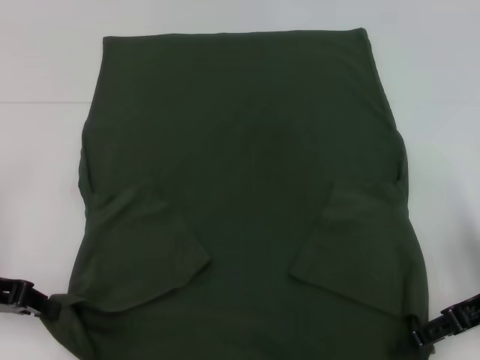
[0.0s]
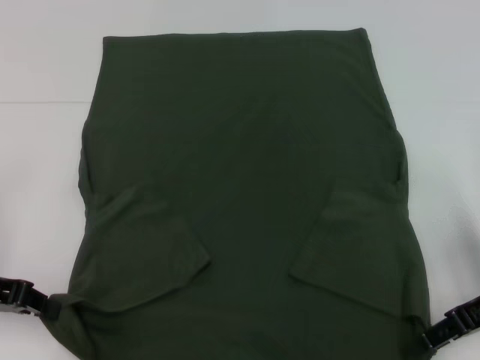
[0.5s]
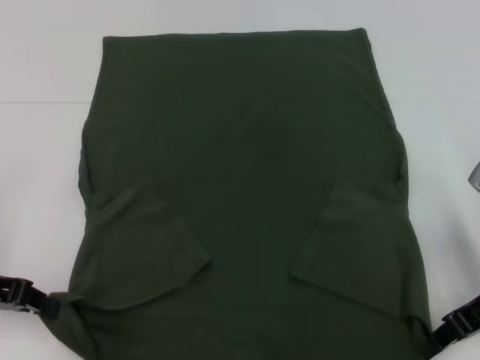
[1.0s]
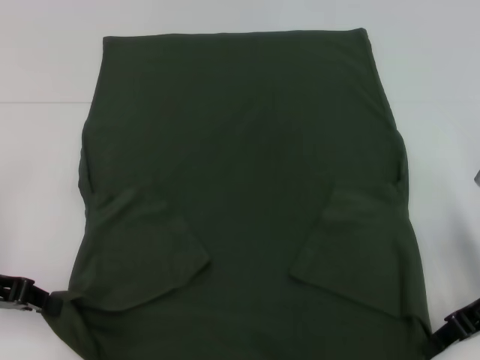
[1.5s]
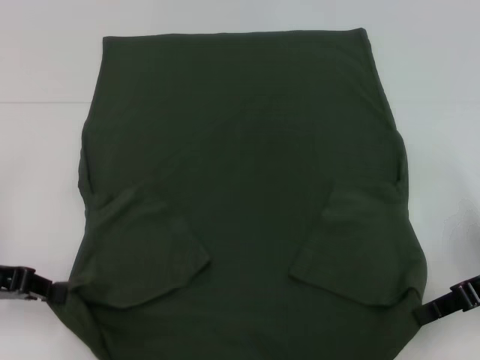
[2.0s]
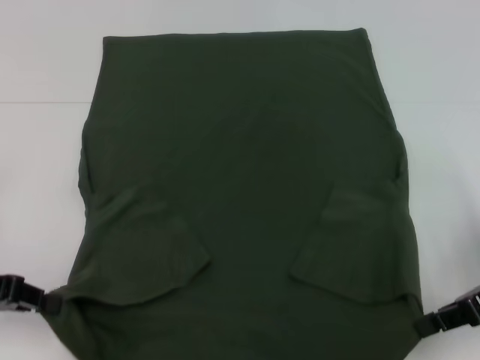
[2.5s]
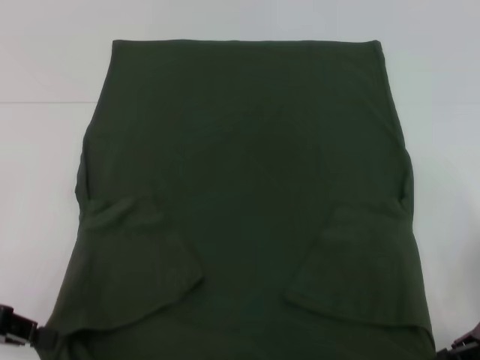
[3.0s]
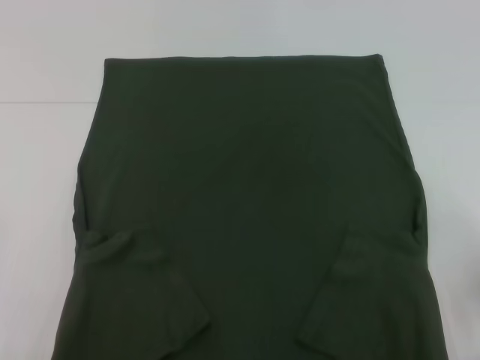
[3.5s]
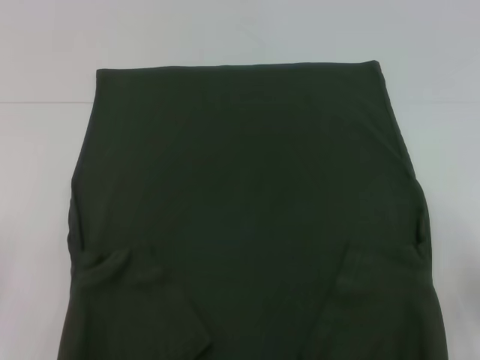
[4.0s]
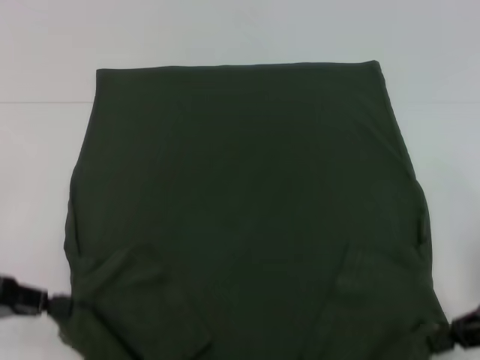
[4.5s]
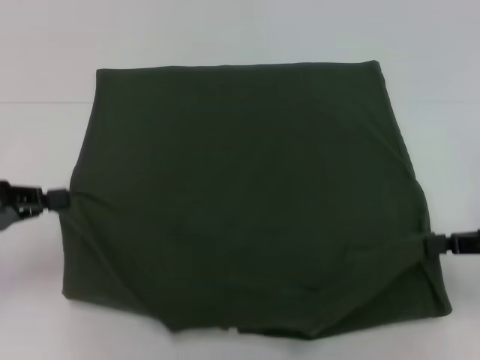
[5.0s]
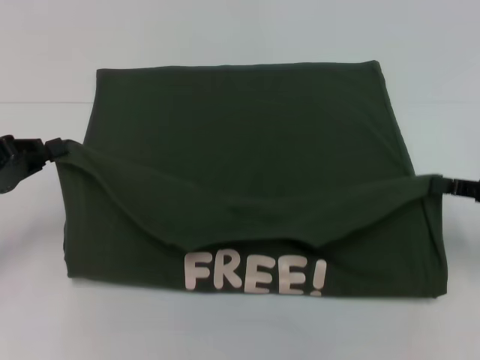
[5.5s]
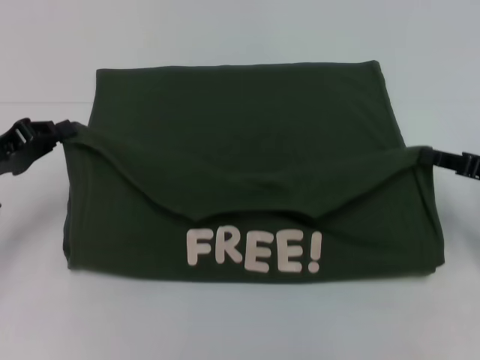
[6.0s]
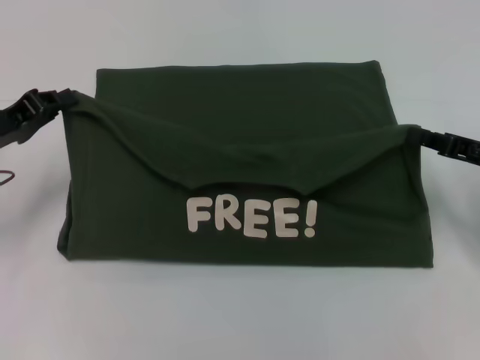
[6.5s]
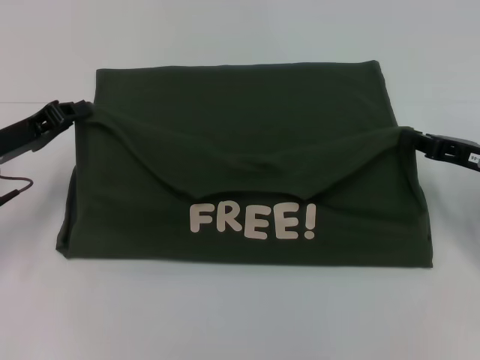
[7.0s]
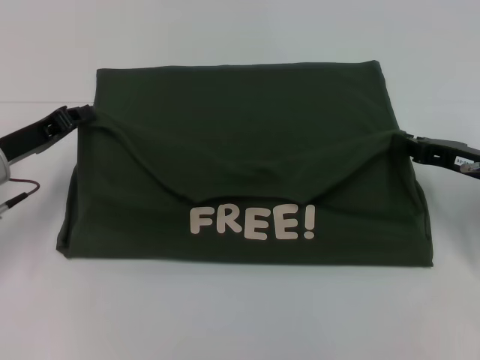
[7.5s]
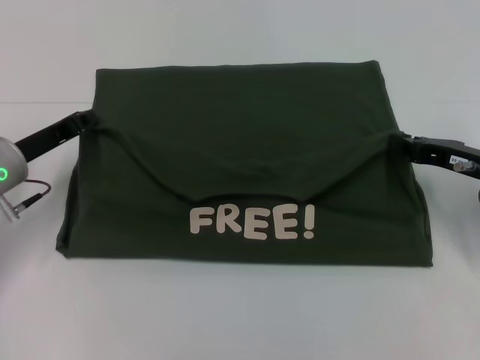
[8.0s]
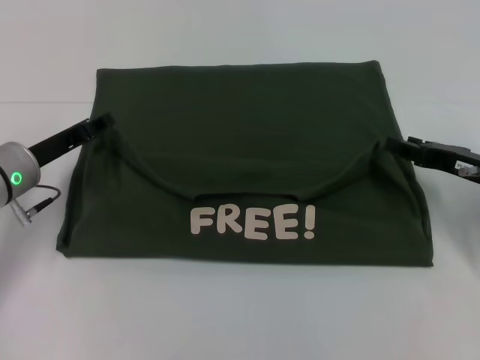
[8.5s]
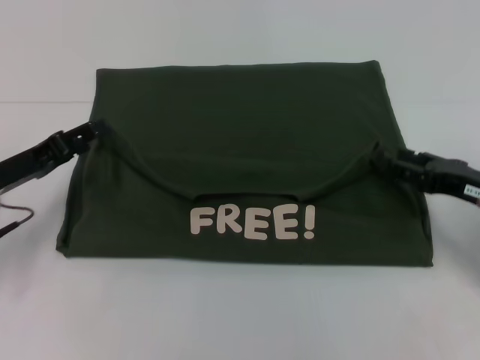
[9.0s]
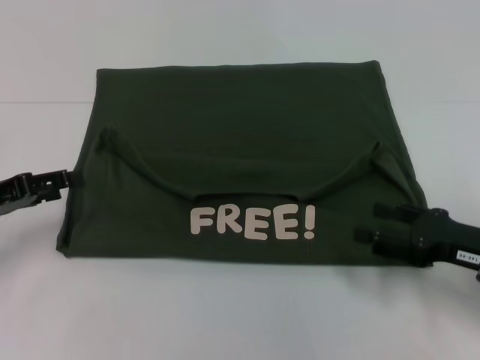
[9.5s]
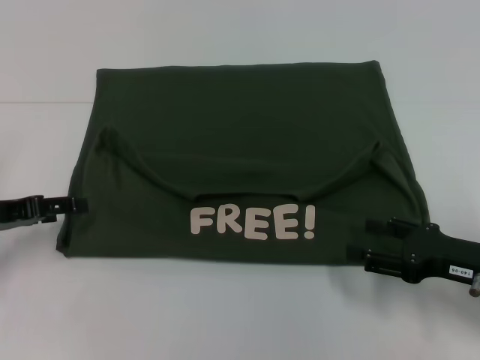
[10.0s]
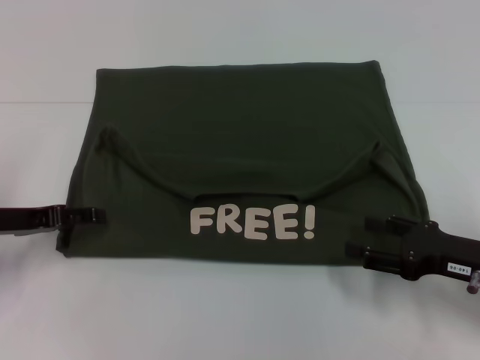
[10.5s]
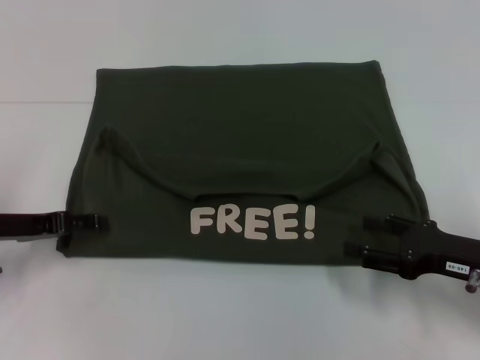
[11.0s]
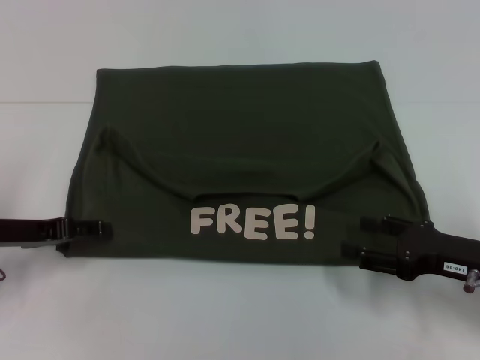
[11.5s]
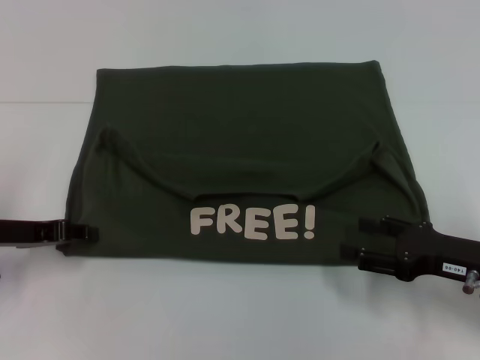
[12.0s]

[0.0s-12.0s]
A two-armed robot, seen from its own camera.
Step, 0.0s to 9.0s: Fold the clothes with your left hand.
Step, 0.0s to 9.0s: Fold the clothes with your right hand.
0.0s to 2.0s: The right gripper closes up.
2.0s to 4.0s: Both grippers travel together backward, approximately 5 cm.
4.0s to 6.0s: Both grippers move forward, roughly 10 cm.
6.0s to 8.0s: The right gripper shifts by about 5 cm. The left gripper goes about 5 cm to the right.
8.0s to 10.0s: The left gripper shifts about 5 cm to the left, and opens, while the right gripper goes approximately 10 cm backward, and opens its fingers.
10.0s to 12.0s: There are only small adjustments of the grippers.

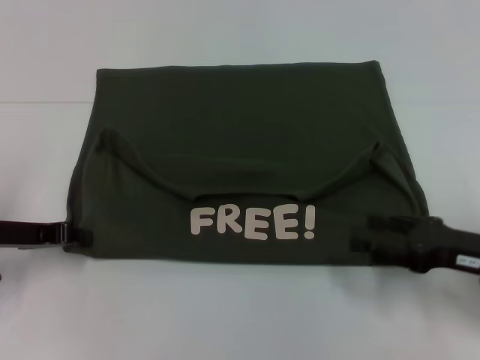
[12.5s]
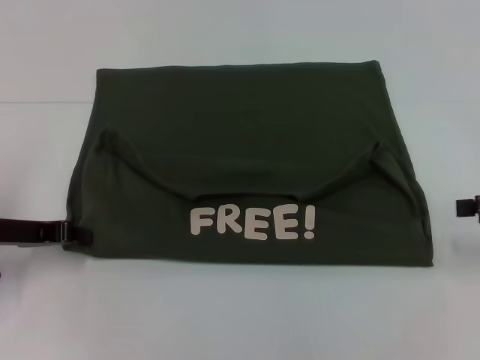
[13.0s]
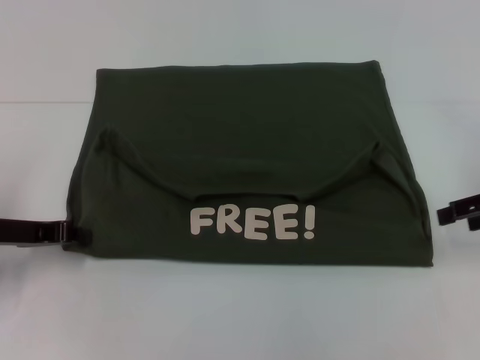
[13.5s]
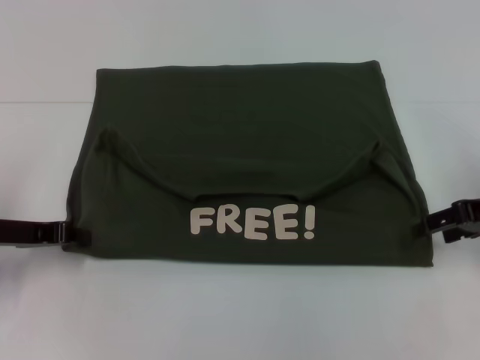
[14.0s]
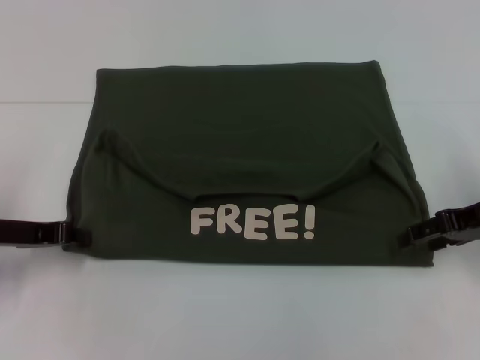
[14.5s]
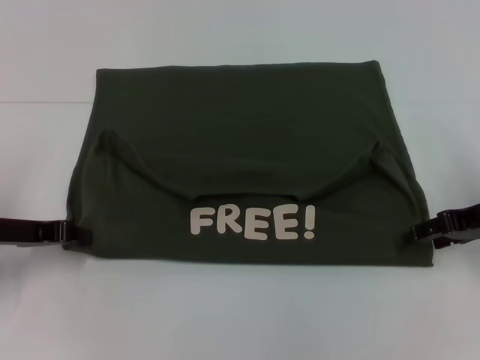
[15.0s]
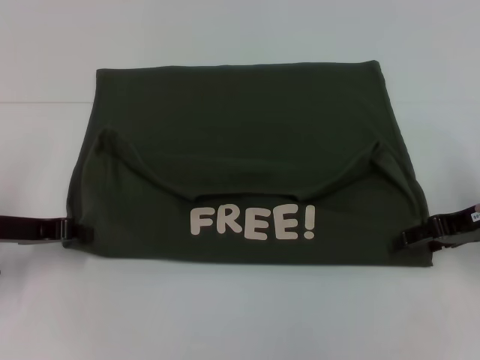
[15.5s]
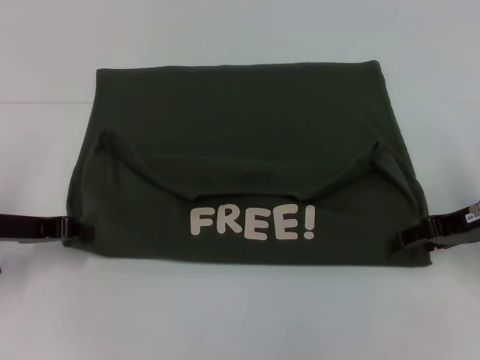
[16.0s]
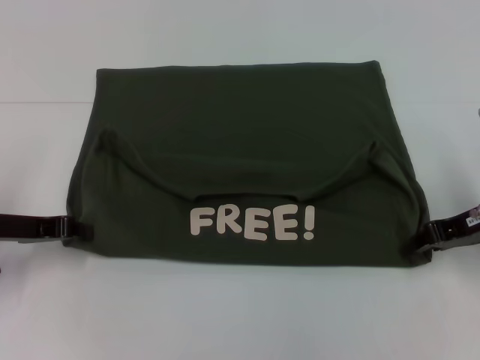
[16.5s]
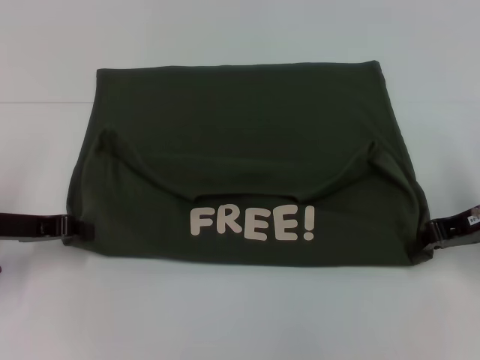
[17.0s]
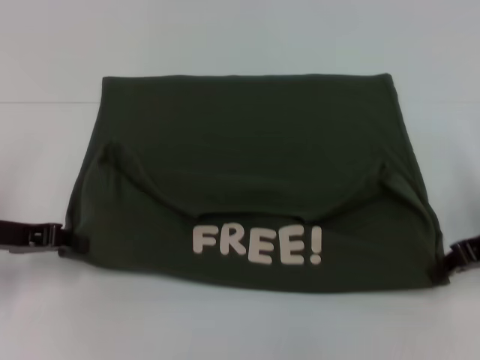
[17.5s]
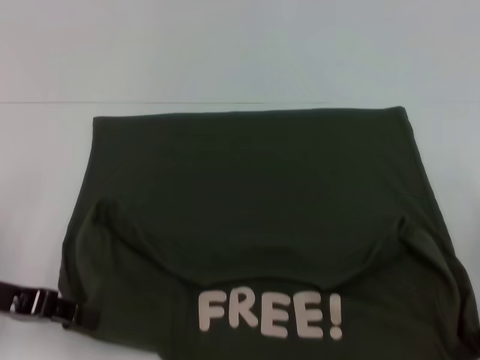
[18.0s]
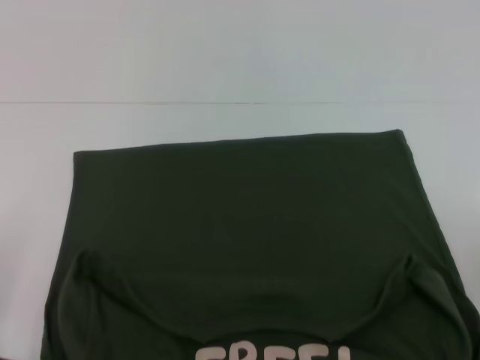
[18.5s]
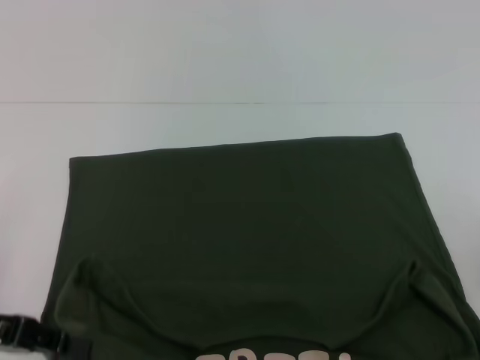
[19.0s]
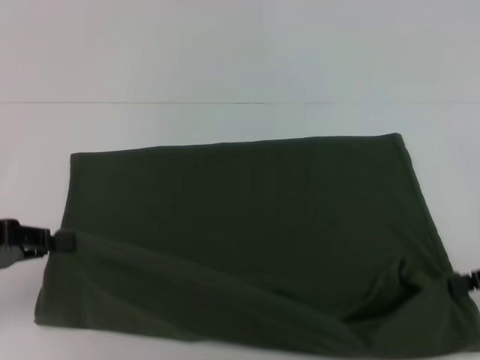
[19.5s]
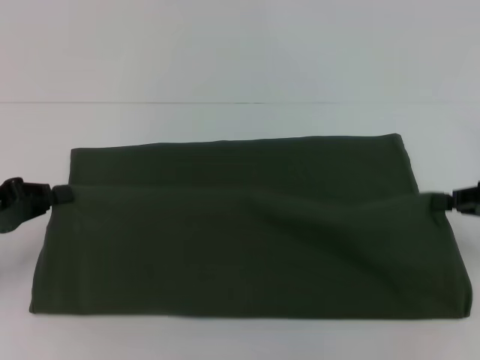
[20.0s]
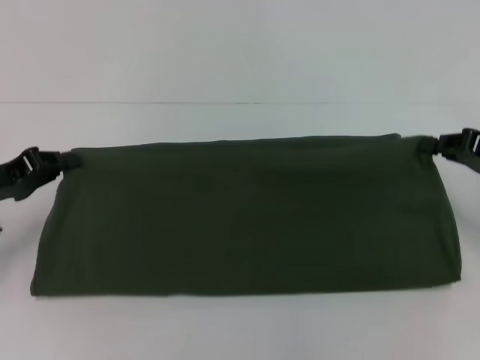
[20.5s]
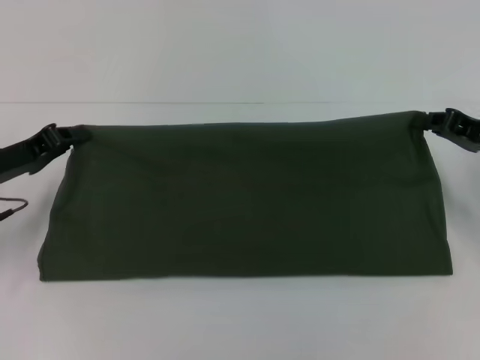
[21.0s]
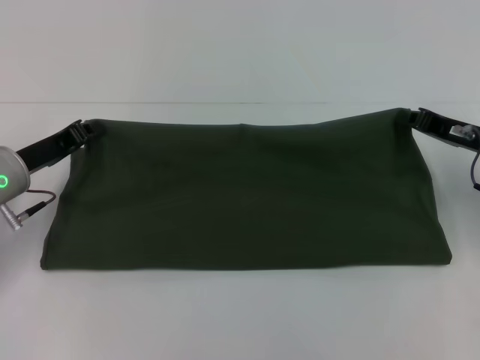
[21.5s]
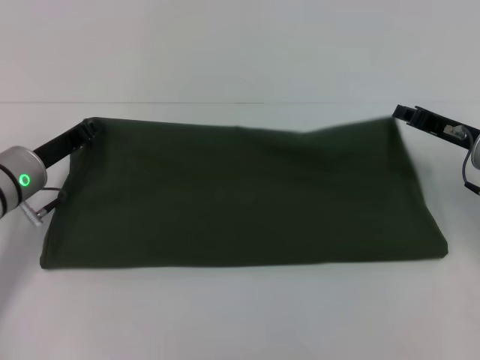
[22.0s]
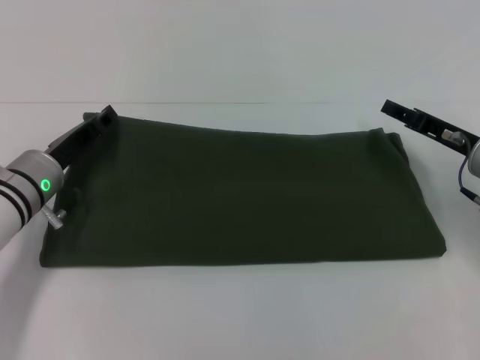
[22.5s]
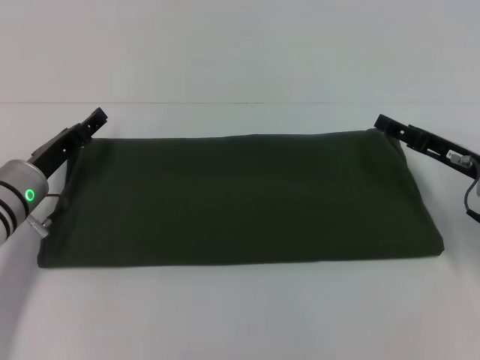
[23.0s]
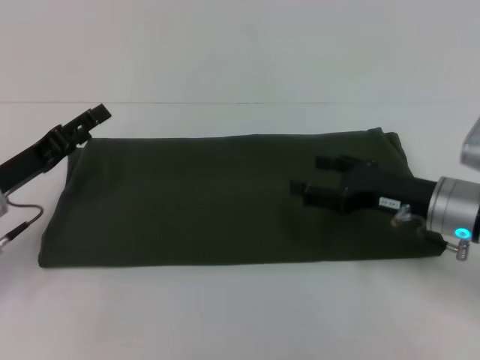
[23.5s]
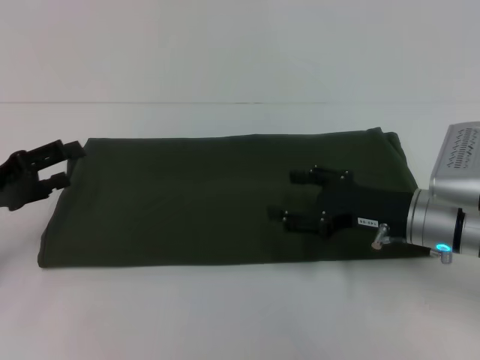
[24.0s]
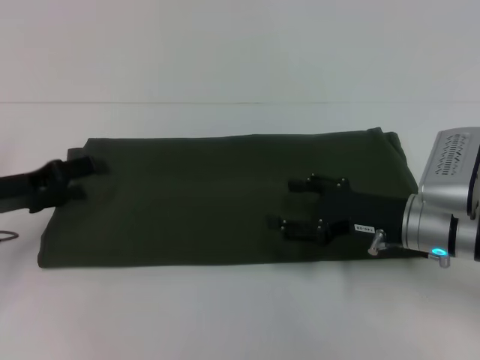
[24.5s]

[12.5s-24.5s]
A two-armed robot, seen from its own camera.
Step, 12.5s to 18.5s: Pull the clothes with your left hand.
Step, 12.5s to 18.5s: Pull the clothes with your right hand.
Step, 19.0s to 22.5s: Fold the clothes with your right hand.
12.5s to 14.5s: The right gripper shifts about 10 cm forward and upward.
14.5s to 16.5s: The grippers move only a little.
16.5s to 18.5s: The grippers both shift backward by roughly 10 cm. The right gripper closes.
18.5s to 20.5s: The grippers both shift forward by some 10 cm.
20.5s to 22.5s: The left gripper is displaced to the right and forward by approximately 10 cm, while the right gripper shifts approximately 5 cm to the left, and opens its fingers.
22.5s to 24.5s: The right gripper moves to the left and backward, roughly 10 cm, and opens. The left gripper is displaced to the left by roughly 10 cm, and opens its fingers.

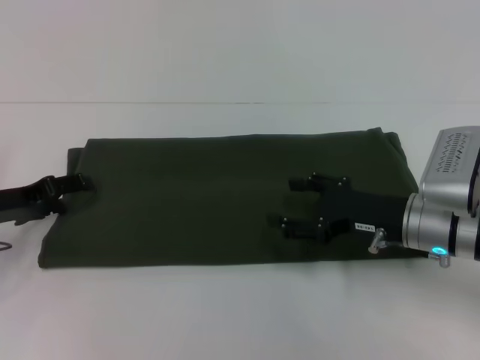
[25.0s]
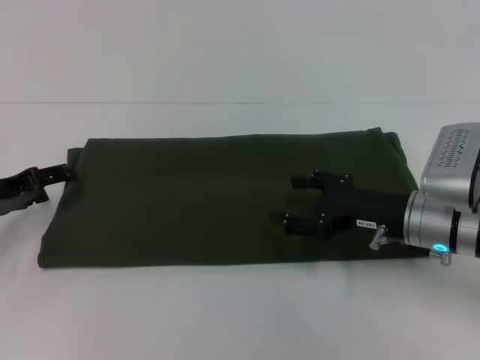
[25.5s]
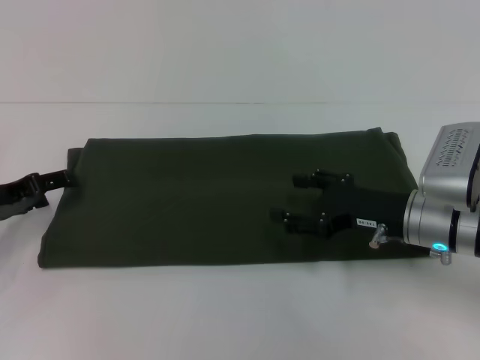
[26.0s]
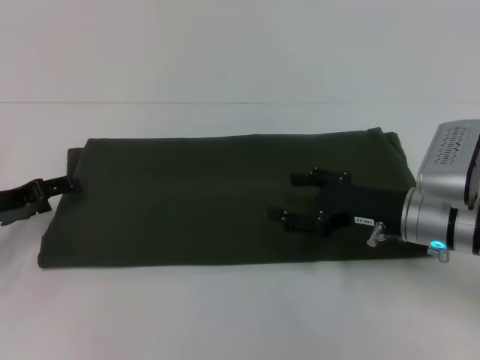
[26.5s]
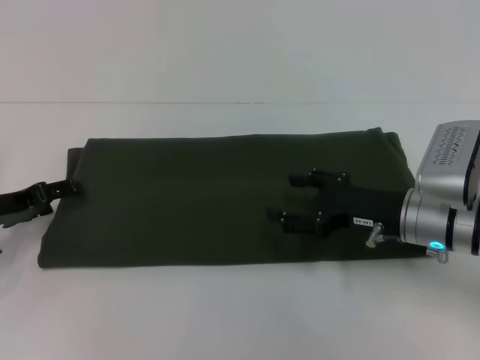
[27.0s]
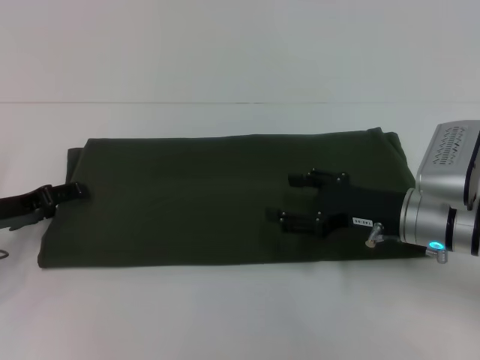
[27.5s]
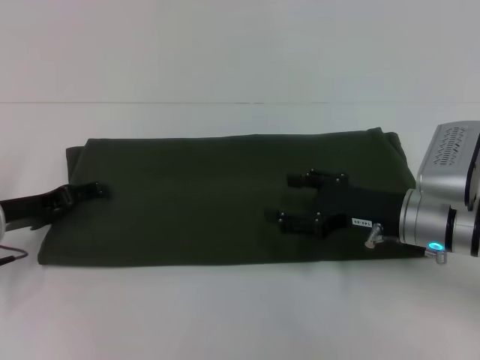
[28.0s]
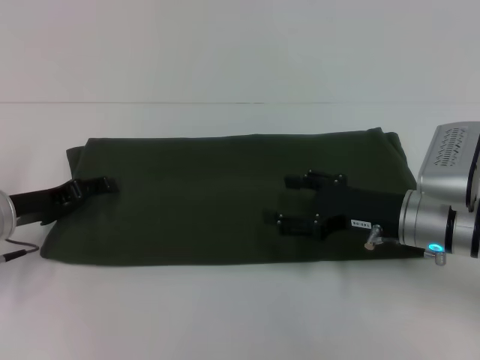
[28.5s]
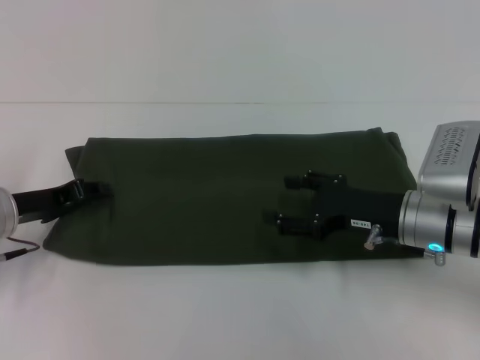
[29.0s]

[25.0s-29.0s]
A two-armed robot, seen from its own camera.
25.0s to 27.0s: The grippers move only a little.
27.0s to 29.0s: The left gripper closes up.
